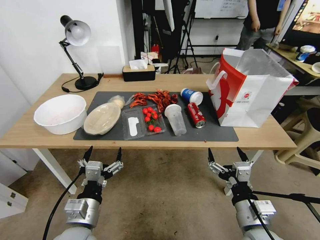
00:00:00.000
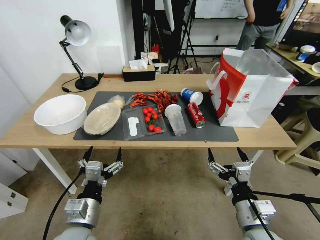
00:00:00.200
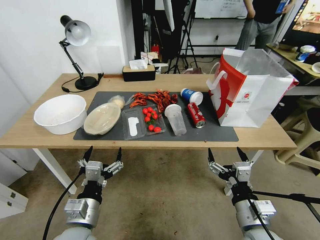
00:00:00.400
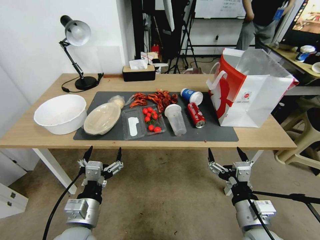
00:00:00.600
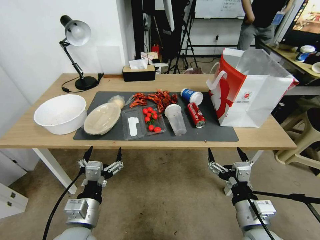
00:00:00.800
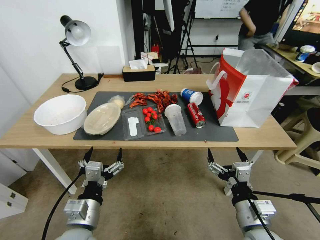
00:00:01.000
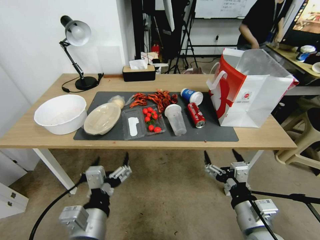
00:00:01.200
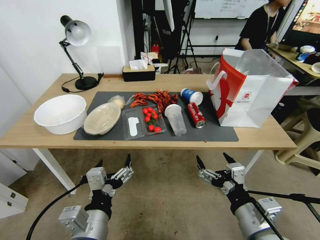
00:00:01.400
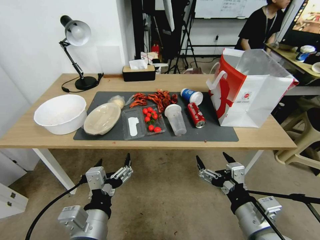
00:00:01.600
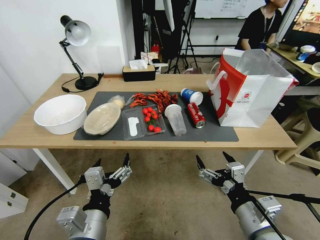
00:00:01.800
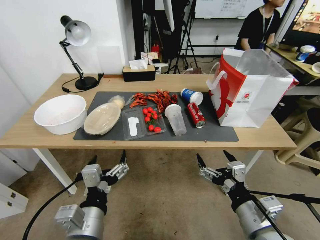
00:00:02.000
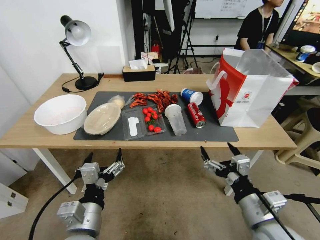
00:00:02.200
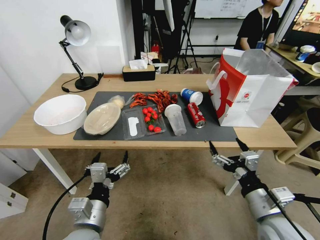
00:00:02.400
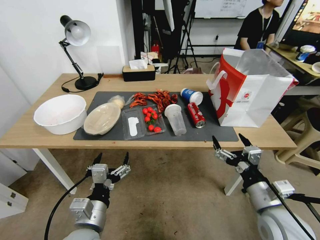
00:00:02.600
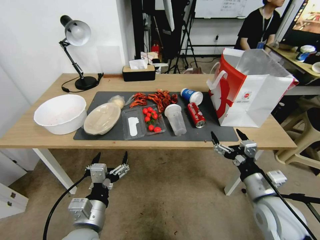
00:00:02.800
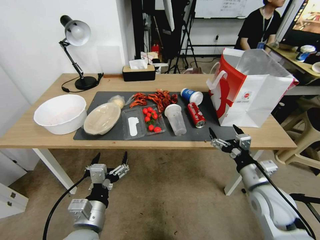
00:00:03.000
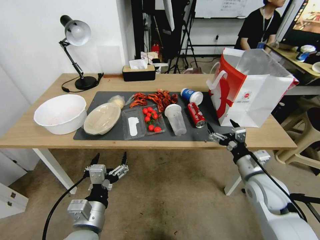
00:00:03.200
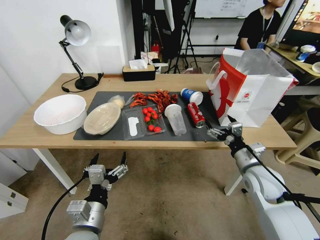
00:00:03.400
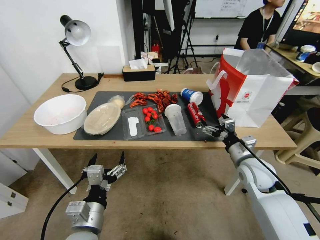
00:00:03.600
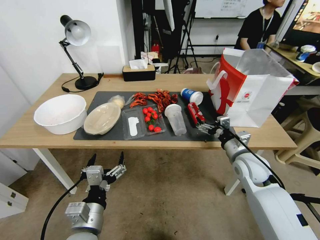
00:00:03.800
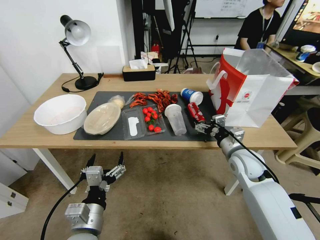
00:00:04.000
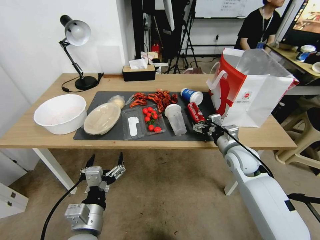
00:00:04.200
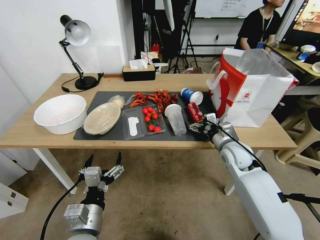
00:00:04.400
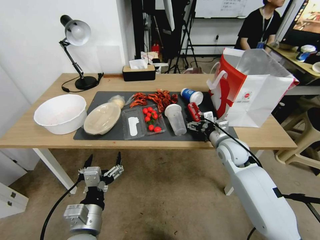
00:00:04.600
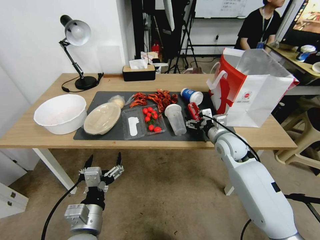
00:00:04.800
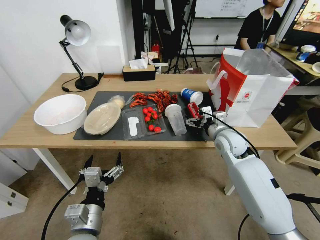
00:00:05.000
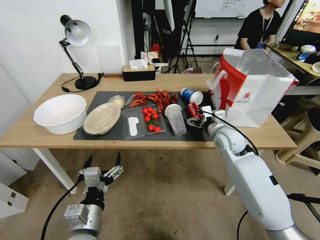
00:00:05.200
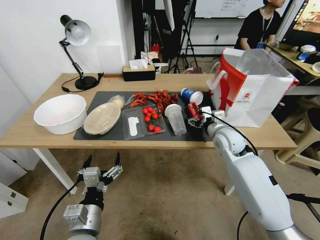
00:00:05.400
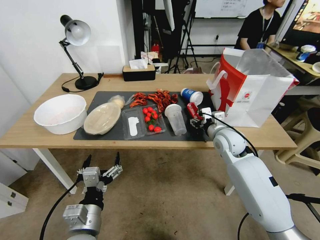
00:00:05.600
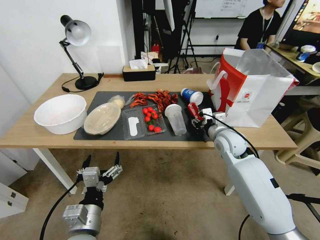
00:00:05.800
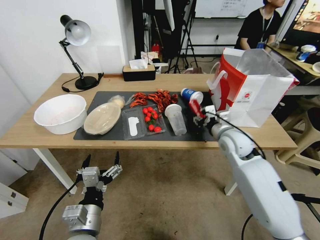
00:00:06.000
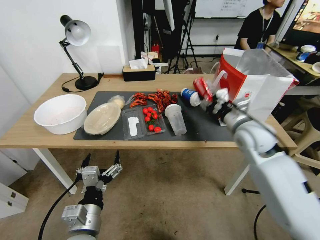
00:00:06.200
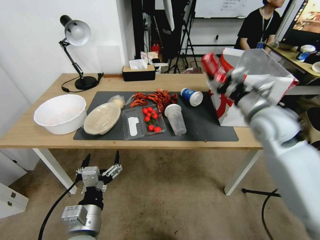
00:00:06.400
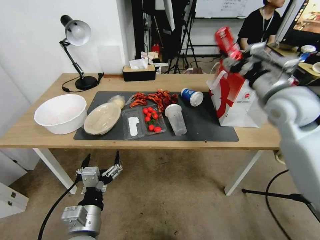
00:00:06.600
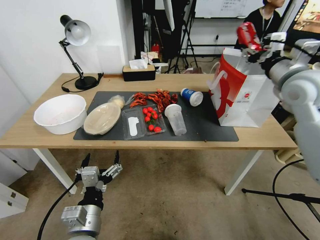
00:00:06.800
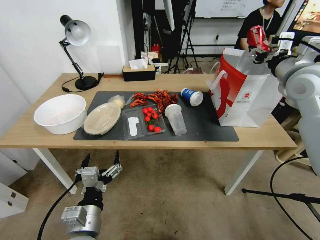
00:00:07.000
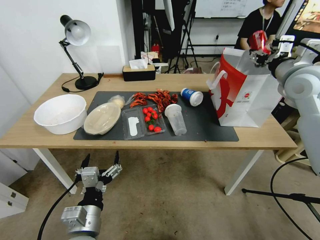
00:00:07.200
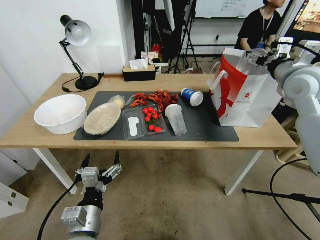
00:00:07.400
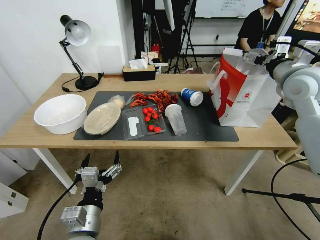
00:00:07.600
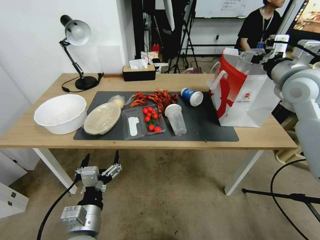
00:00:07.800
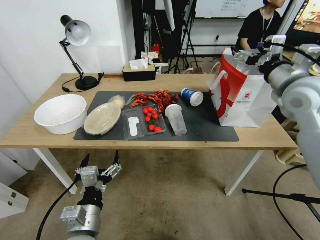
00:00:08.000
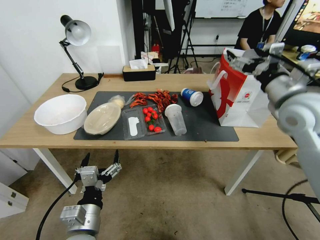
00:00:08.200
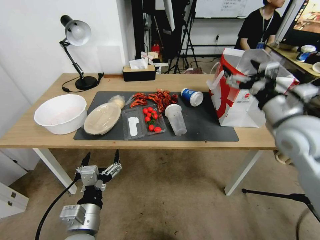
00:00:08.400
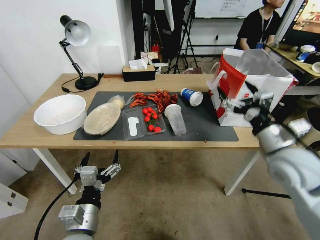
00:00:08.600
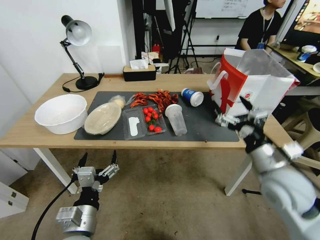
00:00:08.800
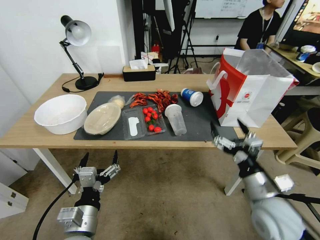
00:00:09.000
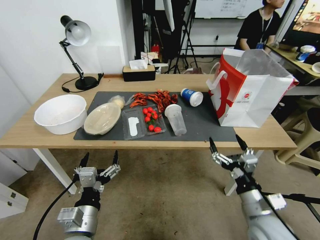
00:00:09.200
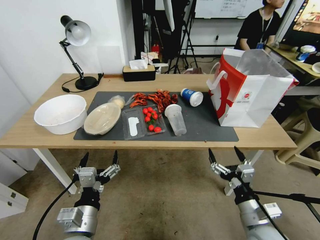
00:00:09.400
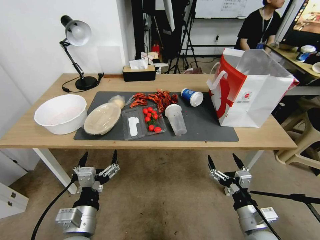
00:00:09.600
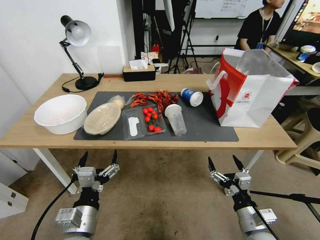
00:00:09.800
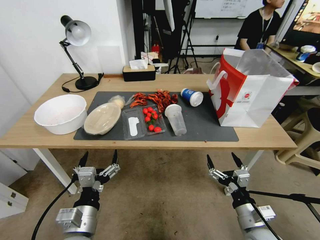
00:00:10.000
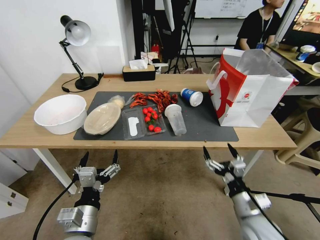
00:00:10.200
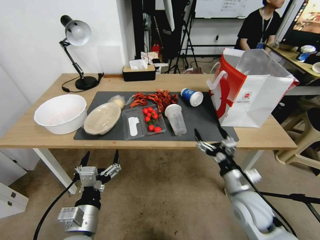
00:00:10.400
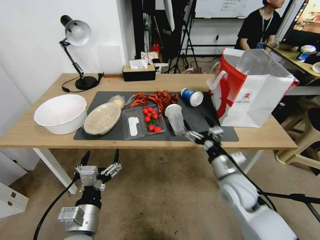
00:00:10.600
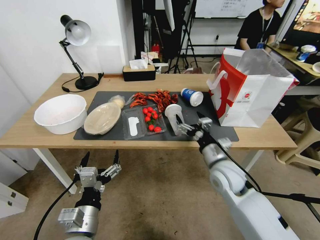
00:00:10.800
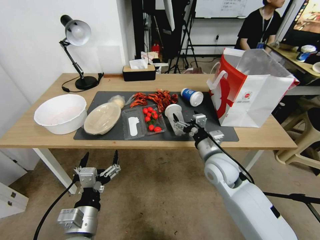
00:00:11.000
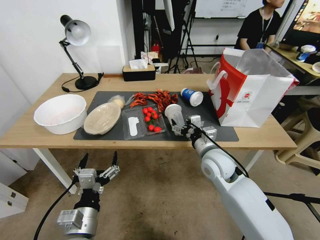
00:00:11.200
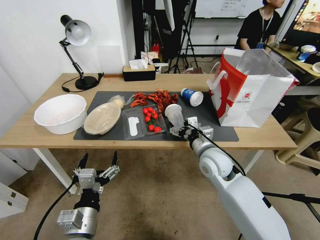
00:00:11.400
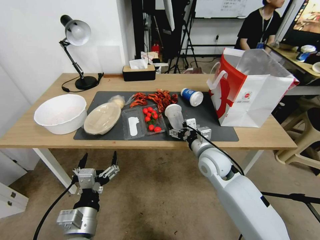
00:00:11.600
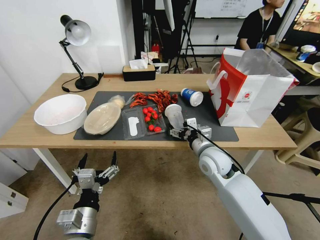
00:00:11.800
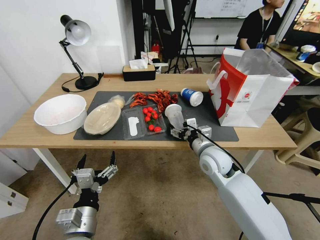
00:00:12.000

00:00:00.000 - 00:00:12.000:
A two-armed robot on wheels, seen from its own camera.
00:00:01.600 - 00:00:03.000: The left gripper travels downward by about 5 cm; the right gripper travels forward and to the right by about 15 cm.
00:00:03.000 - 00:00:04.400: The right gripper heads forward, covering about 15 cm.
00:00:04.400 - 00:00:06.000: The right gripper ends up approximately 5 cm from where it was, and closes its fingers.
00:00:06.000 - 00:00:07.600: The right gripper moves upward and to the right, about 25 cm, and opens its fingers.
00:00:07.600 - 00:00:09.000: The right gripper goes about 30 cm downward and backward.
00:00:09.000 - 00:00:10.400: The right gripper heads downward, covering roughly 5 cm.
00:00:10.400 - 00:00:12.000: The right gripper travels forward and to the left by some 15 cm.

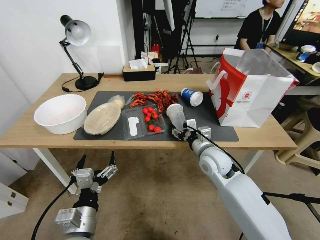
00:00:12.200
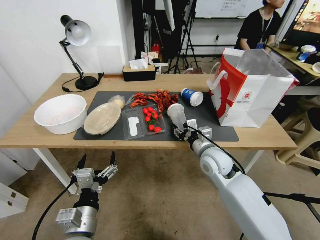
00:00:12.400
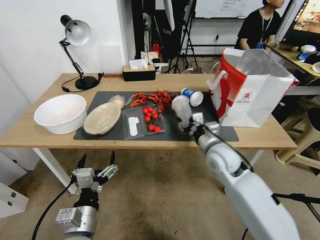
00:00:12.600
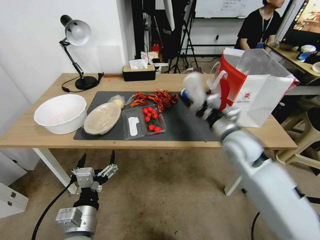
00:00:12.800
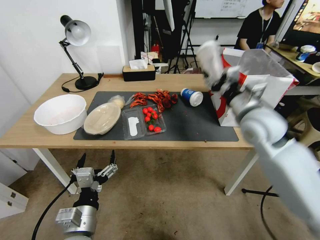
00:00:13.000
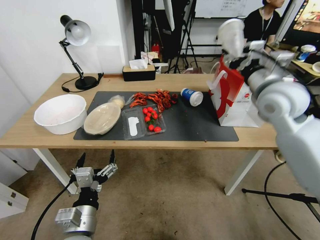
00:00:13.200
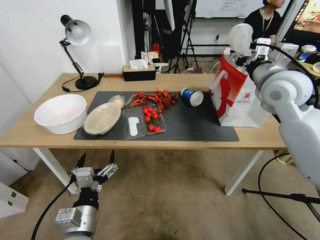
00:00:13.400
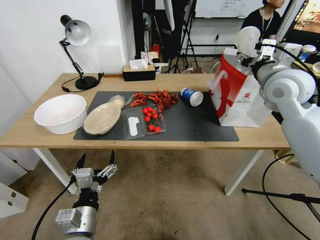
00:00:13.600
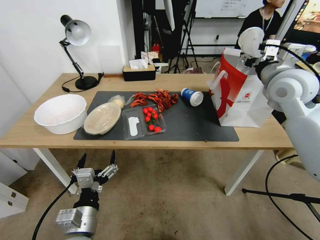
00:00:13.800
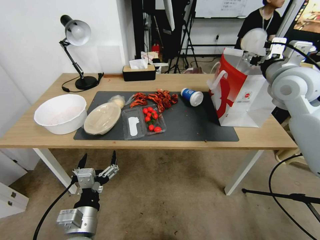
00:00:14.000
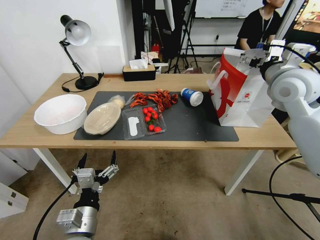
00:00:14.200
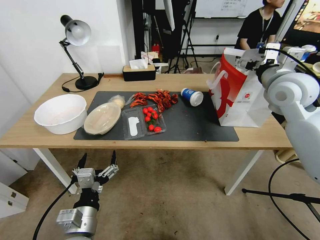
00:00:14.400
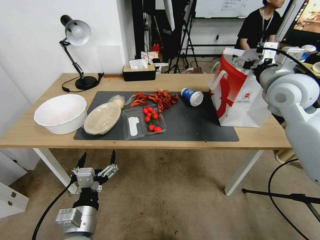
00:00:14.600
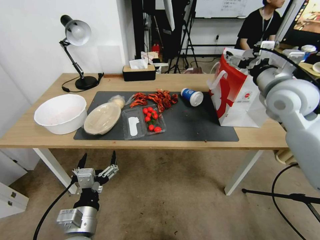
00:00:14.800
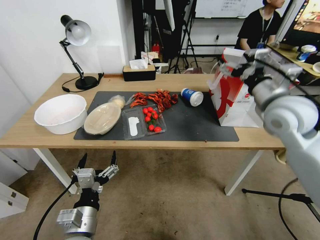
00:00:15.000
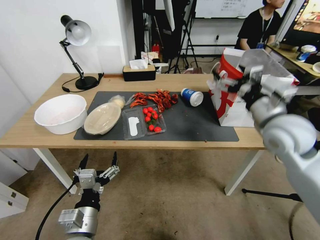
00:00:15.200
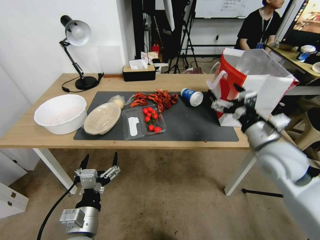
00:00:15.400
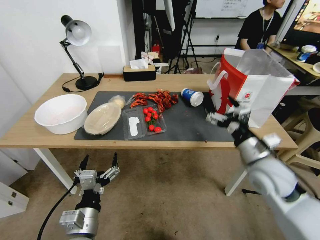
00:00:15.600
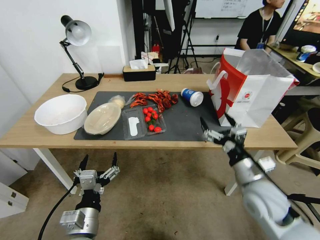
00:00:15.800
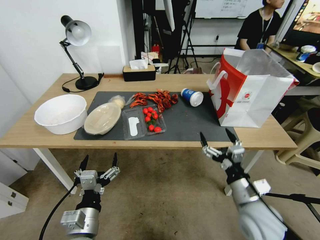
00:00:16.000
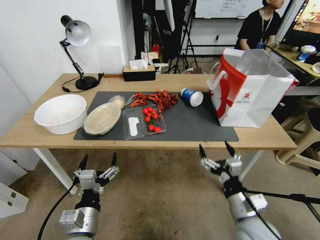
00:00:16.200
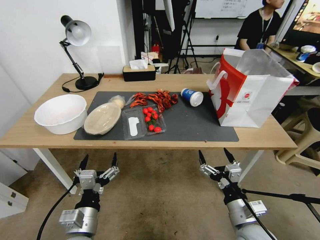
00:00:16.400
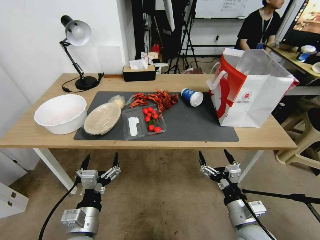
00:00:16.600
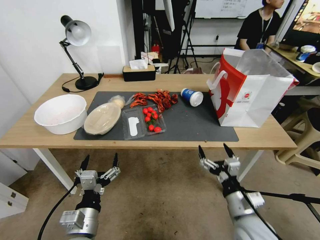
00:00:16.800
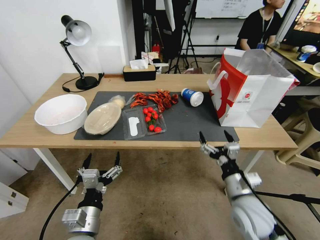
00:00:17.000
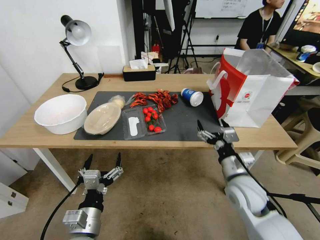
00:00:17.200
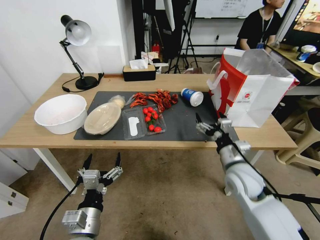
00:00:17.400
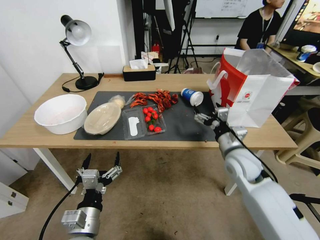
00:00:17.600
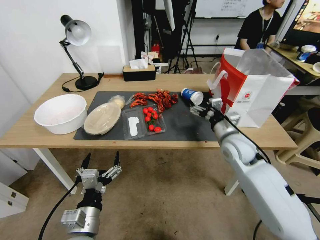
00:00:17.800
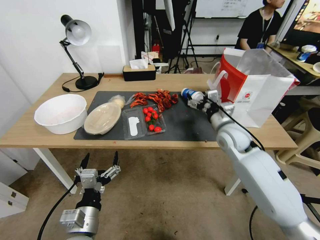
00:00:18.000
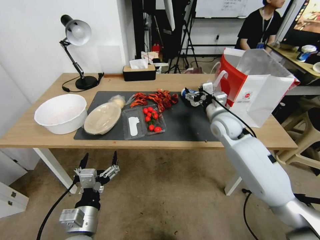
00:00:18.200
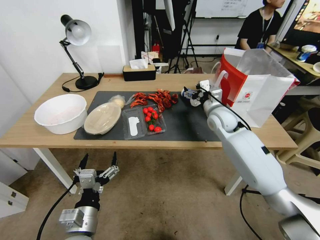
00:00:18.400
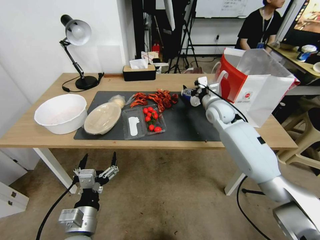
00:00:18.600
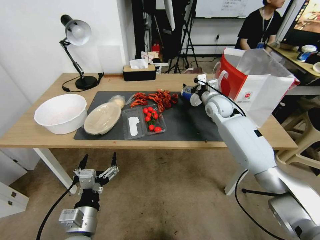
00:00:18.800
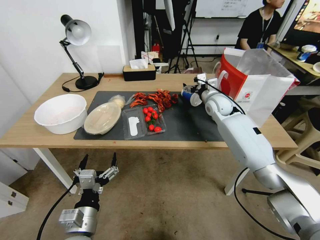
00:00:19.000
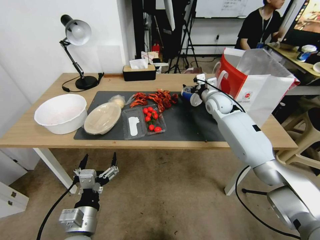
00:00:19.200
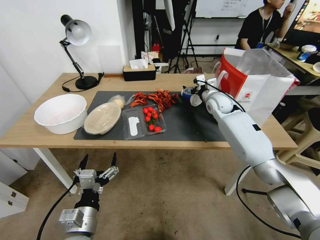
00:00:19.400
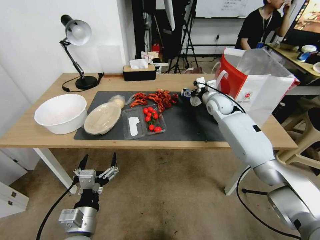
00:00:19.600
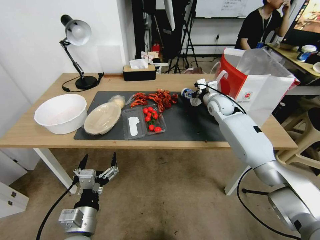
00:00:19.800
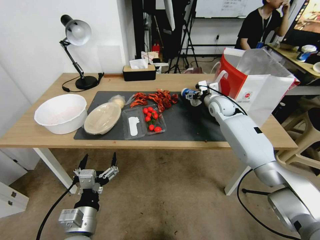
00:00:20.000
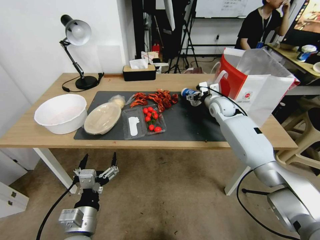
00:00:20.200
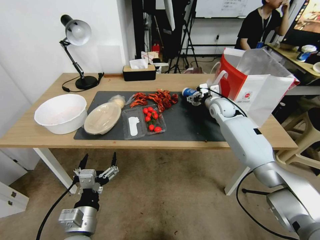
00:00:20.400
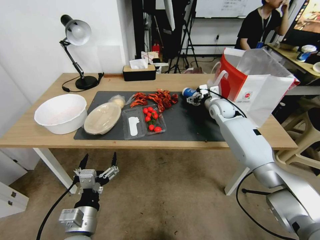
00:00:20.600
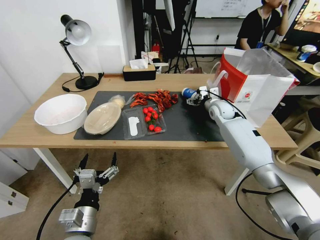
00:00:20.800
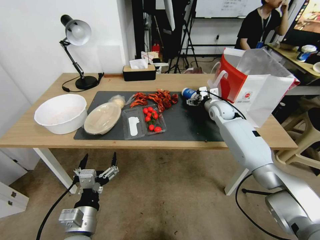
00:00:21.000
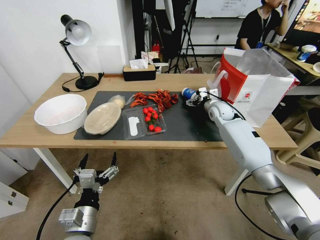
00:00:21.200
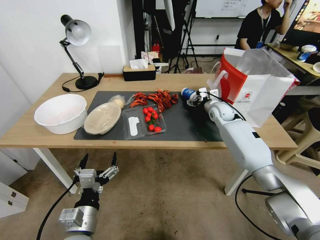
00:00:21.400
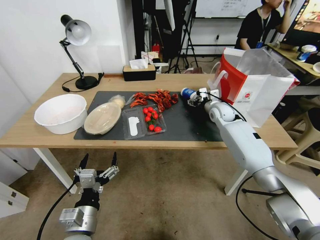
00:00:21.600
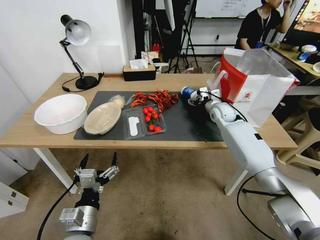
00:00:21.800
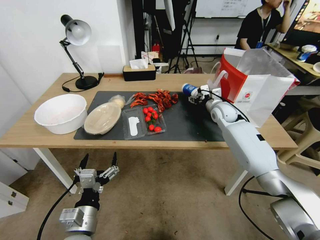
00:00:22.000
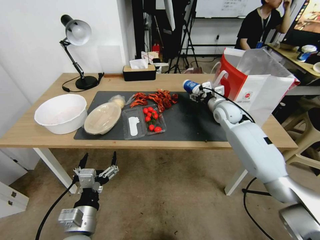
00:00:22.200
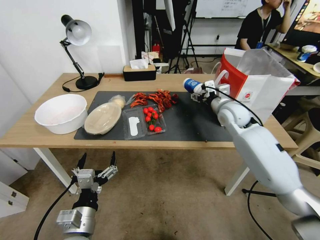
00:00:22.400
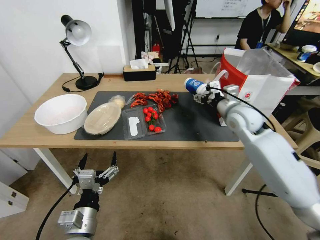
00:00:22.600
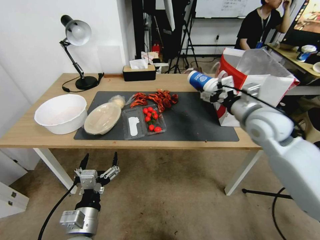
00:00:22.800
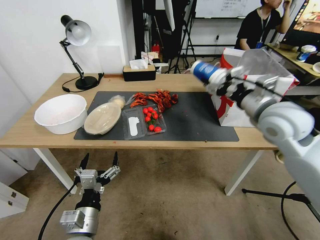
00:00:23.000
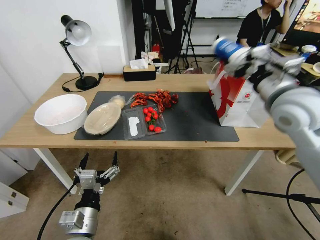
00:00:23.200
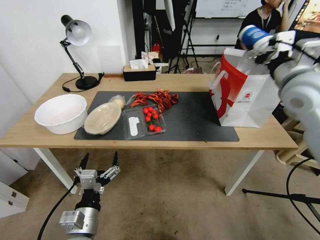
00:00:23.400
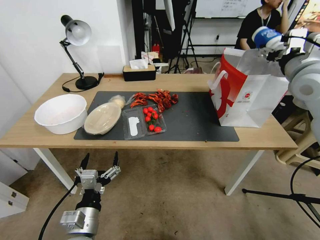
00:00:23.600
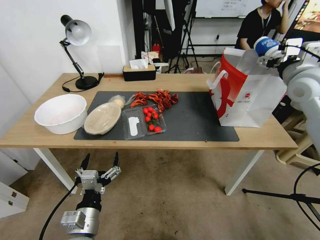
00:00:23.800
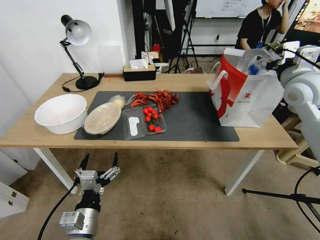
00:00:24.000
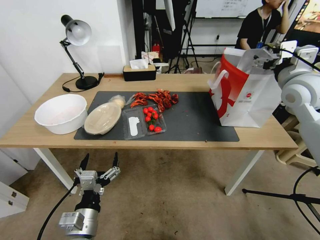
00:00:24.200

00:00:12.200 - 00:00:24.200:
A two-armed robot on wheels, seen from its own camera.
00:00:12.200 - 00:00:13.800: The right gripper moves upward and to the right, roughly 30 cm.
00:00:13.800 - 00:00:15.200: The right gripper shifts about 10 cm backward and downward, and opens up.
00:00:15.200 - 00:00:16.600: The right gripper shifts roughly 30 cm downward and backward.
00:00:16.600 - 00:00:18.200: The right gripper goes about 35 cm forward and upward.
00:00:18.200 - 00:00:19.800: The right gripper is displaced forward by approximately 10 cm.
00:00:19.800 - 00:00:21.200: The grippers make only small movements.
00:00:21.200 - 00:00:22.600: The right gripper moves backward and upward, about 20 cm, and closes.
00:00:22.600 - 00:00:24.200: The right gripper shifts some 15 cm upward and to the right, and opens up.
